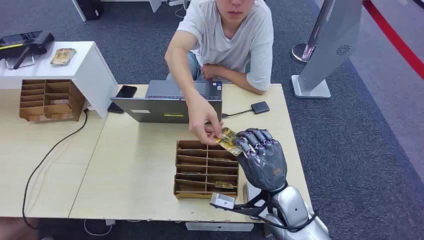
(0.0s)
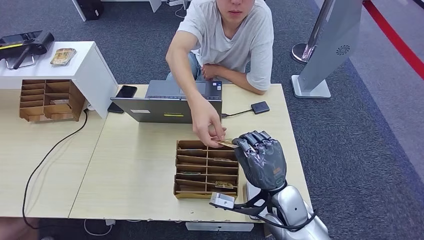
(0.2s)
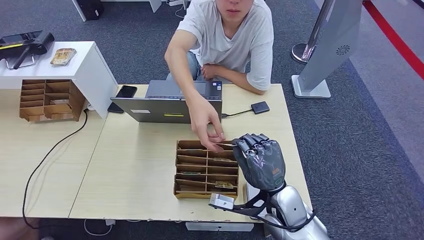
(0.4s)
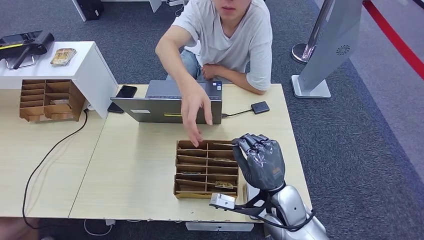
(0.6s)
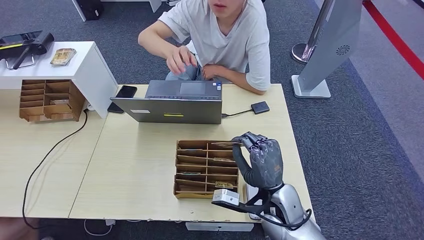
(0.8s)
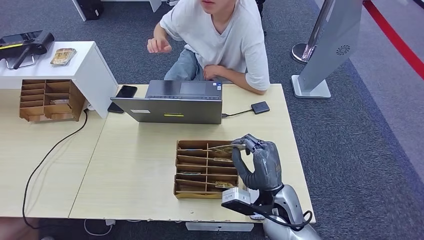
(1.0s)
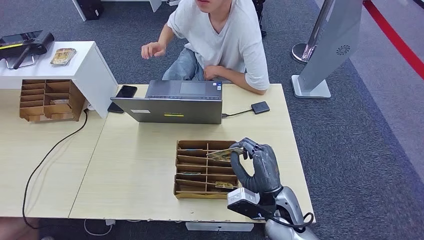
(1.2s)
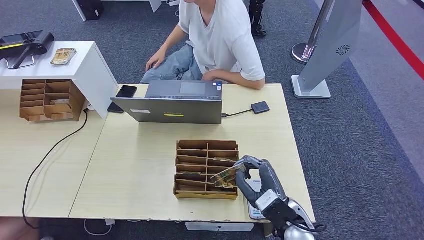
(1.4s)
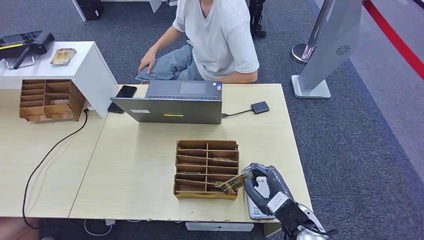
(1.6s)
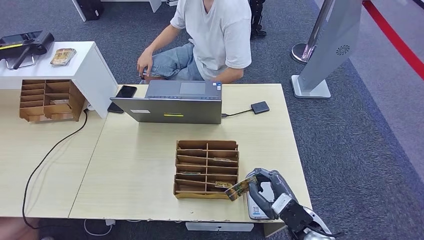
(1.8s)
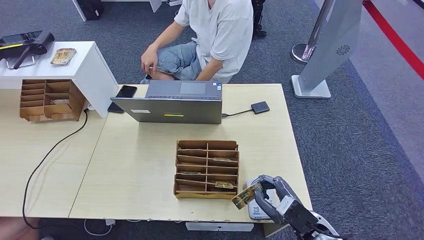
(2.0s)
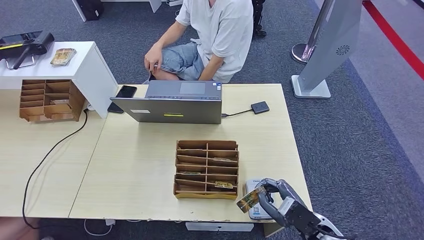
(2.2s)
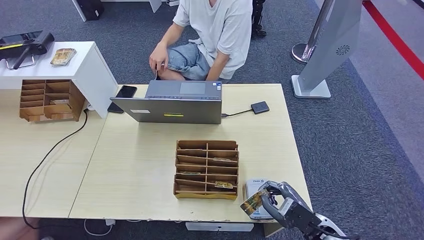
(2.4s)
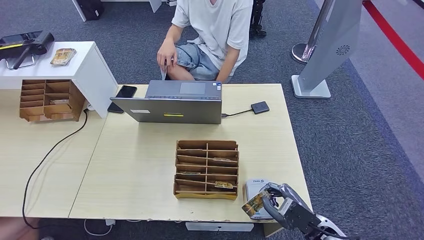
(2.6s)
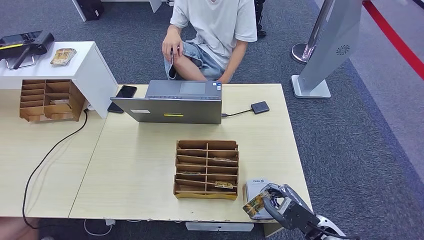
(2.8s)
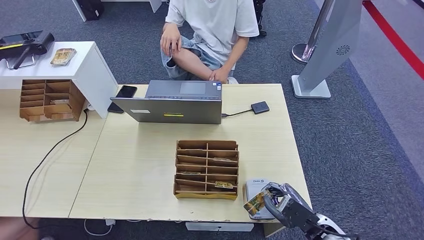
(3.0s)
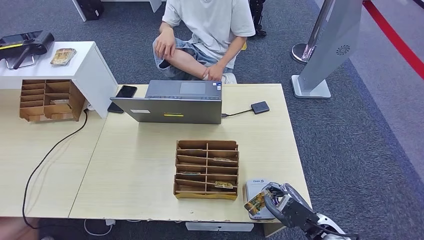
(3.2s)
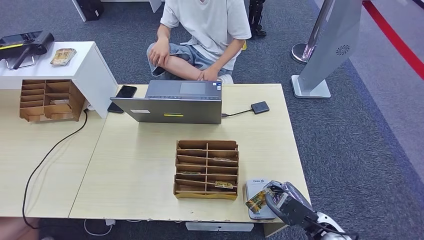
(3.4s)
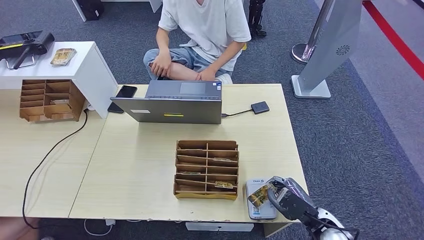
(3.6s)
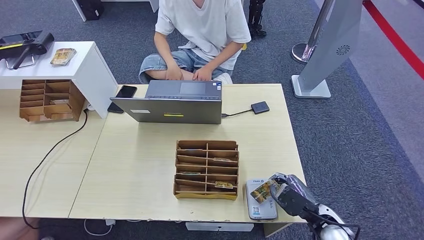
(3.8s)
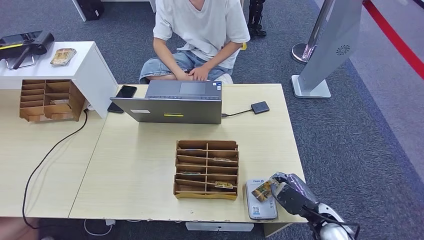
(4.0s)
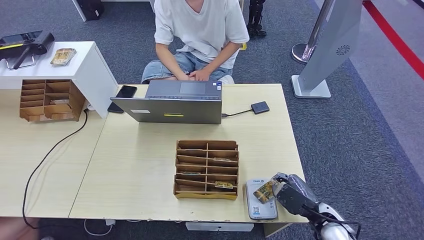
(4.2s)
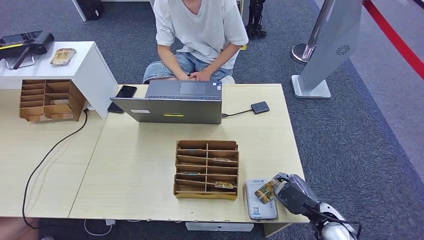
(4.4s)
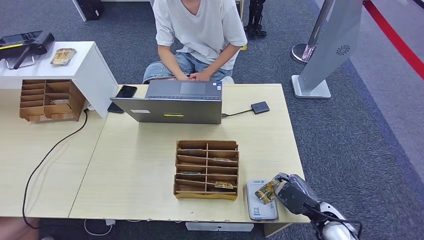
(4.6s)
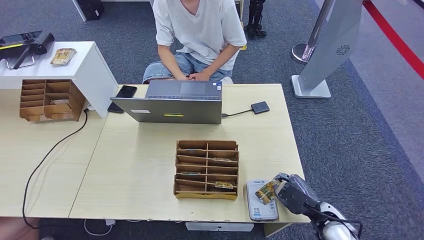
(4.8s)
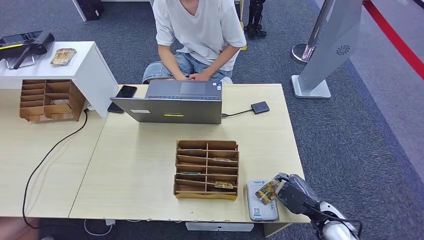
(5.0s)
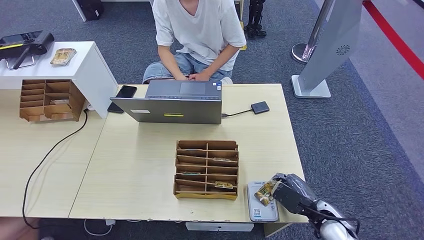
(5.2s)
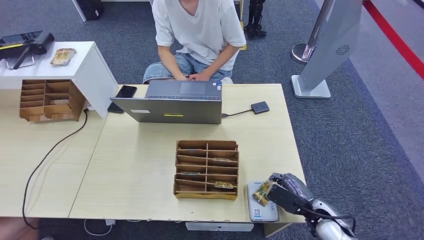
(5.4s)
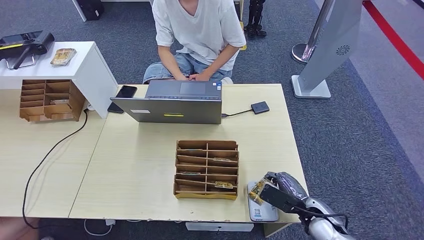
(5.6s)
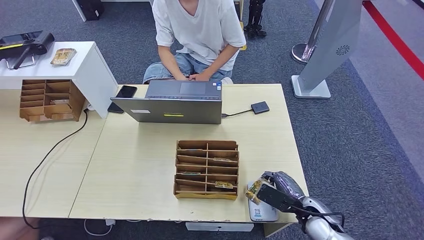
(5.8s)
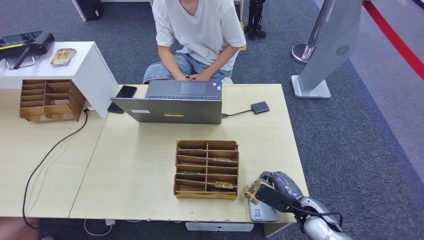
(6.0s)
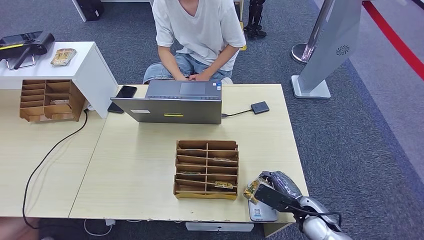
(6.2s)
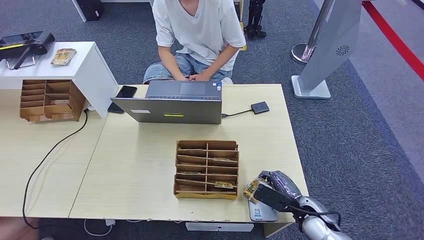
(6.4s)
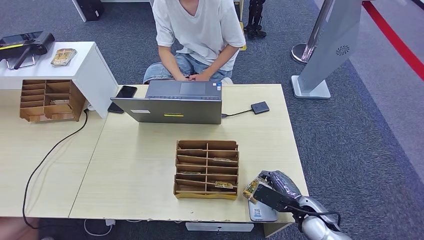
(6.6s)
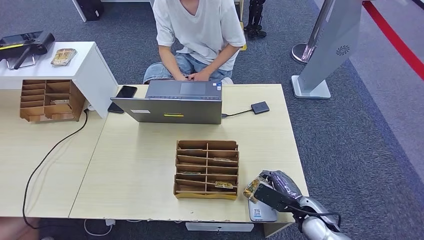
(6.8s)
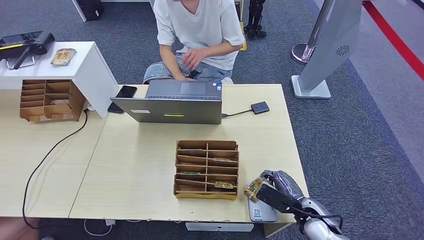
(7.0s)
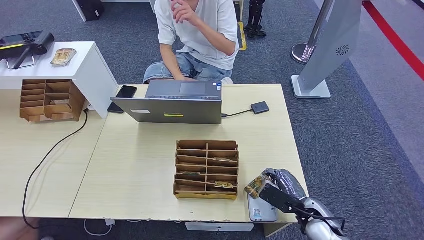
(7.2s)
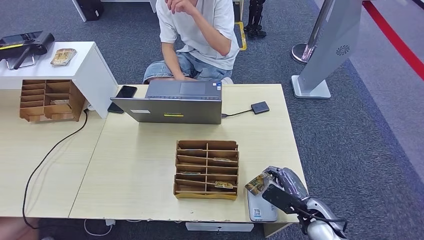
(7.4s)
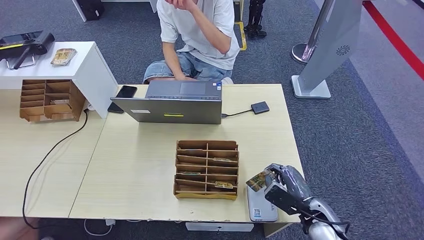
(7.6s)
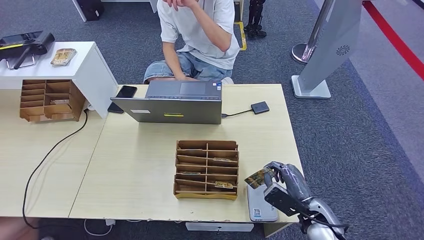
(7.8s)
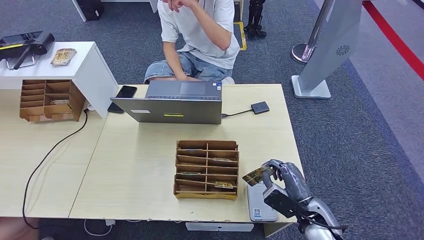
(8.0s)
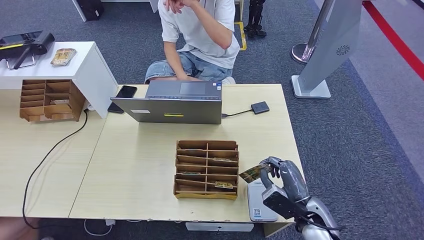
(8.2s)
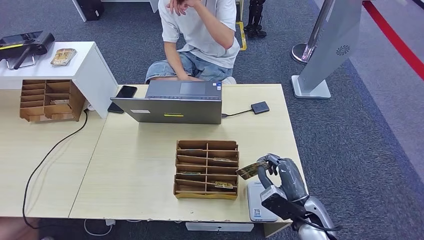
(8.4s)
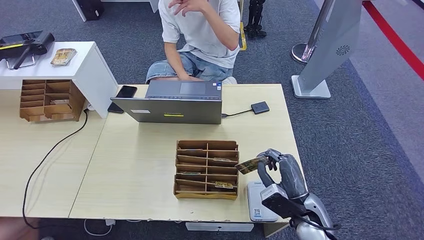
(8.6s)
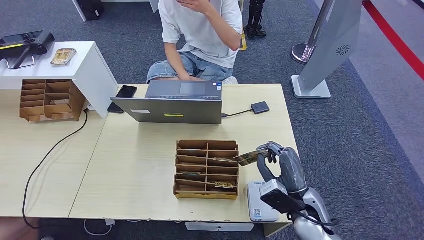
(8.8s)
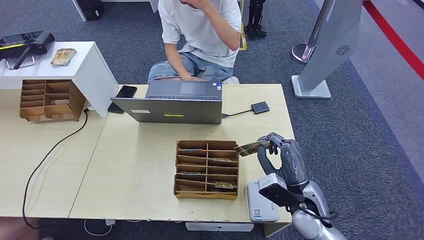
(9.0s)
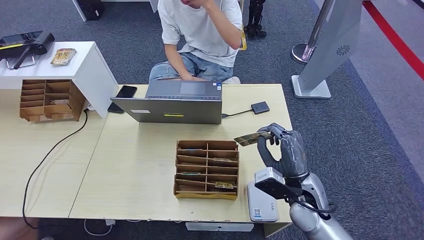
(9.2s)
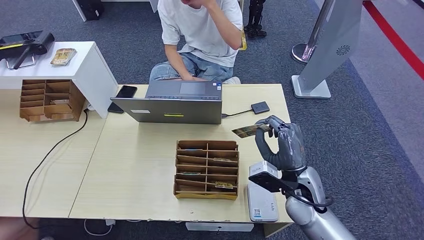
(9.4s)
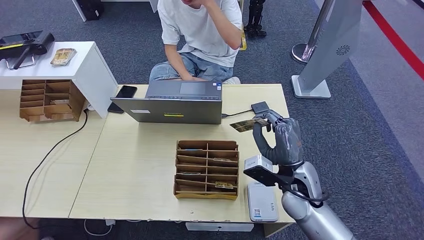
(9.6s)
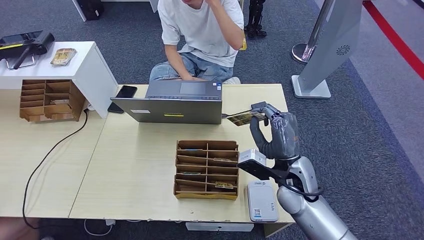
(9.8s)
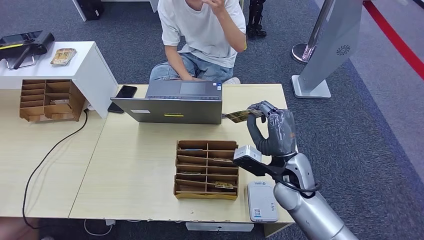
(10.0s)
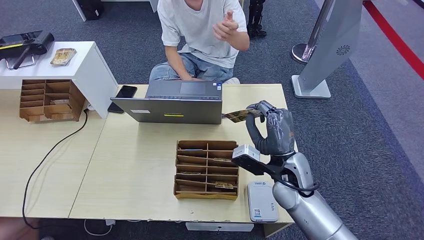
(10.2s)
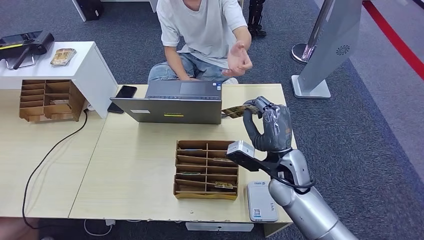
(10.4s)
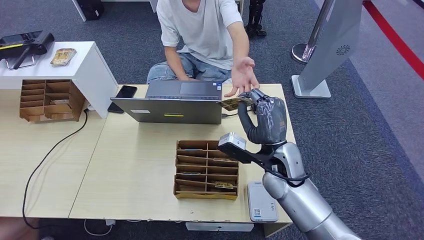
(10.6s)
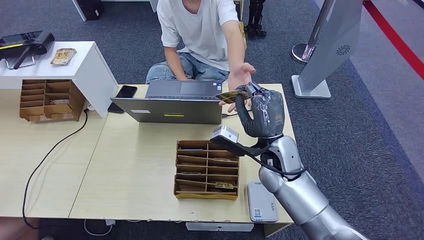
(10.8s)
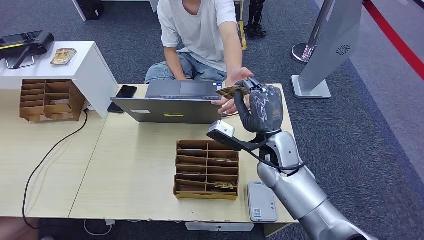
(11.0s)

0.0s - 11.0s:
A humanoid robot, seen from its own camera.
Step, 0.0s - 1.0s: Take the ID card from the person's hand.
Step, 1.2s - 4.2s: Place the ID card on the card reader.
Step, 4.4s - 8.6s: Hand the ID card to the person.
Step, 9.0s - 9.8s: Pick up the room key from the key card box.
1.6s - 3.2s: The right hand moves to the right, about 10 cm.
3.2s - 4.8s: The hands make only small movements.
4.8s - 7.8s: The hands stay close to where they were, moving slightly.
7.8s - 9.4s: The right hand shifts some 10 cm upward, to the left and forward.
9.4s - 11.0s: The right hand heads forward, to the left and upward, covering some 10 cm.

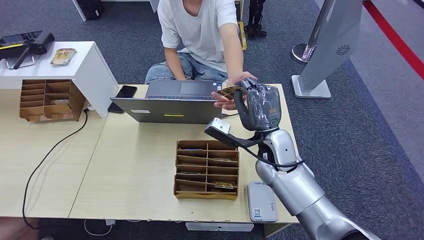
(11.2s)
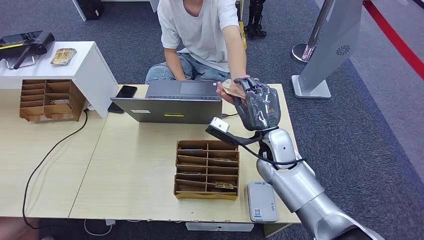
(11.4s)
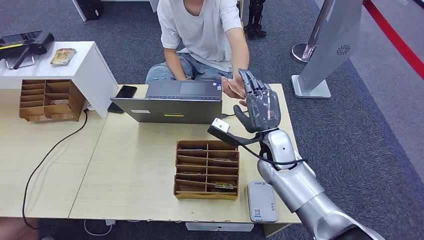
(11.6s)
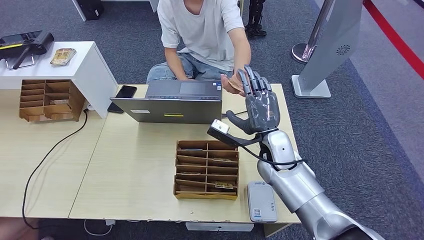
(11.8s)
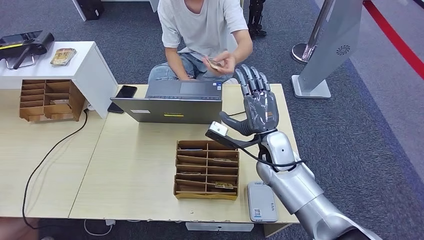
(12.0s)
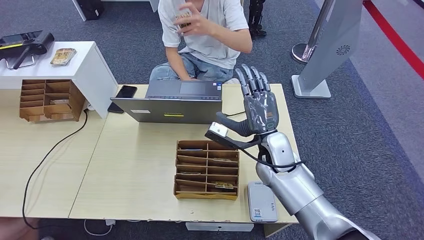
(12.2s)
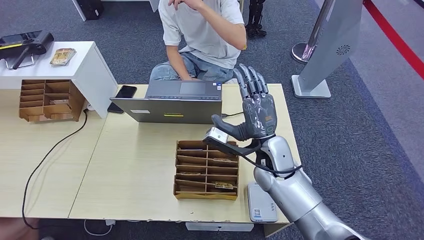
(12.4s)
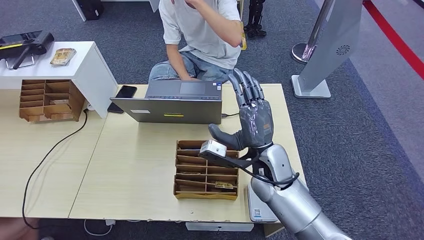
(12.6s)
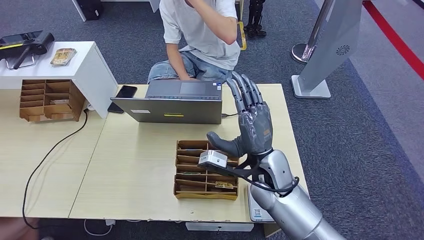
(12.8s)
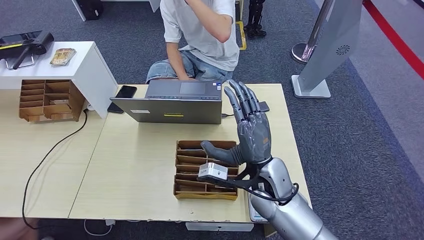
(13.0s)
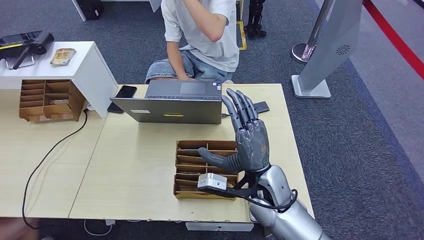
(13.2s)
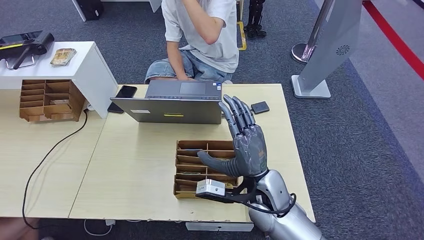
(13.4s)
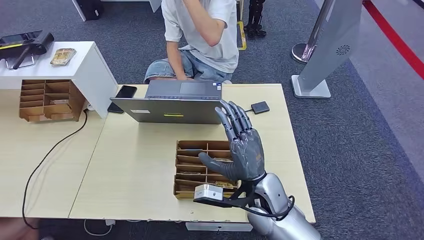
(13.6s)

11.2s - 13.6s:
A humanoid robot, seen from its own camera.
Step, 11.2s - 13.4s: Hand the room key to the person.
11.2s - 12.4s: The hands stay close to where they were, moving slightly.
12.4s - 13.6s: The right hand heads backward, covering about 10 cm.

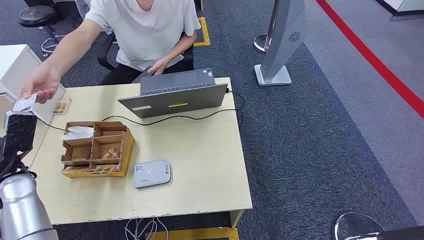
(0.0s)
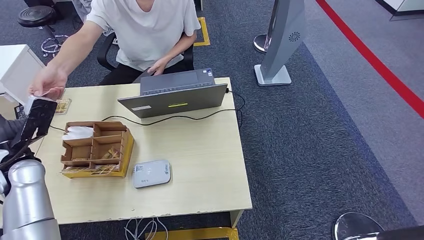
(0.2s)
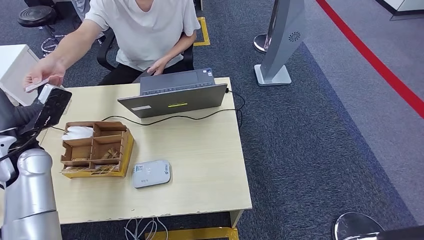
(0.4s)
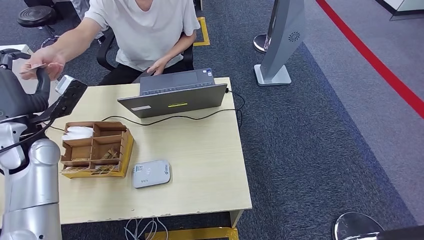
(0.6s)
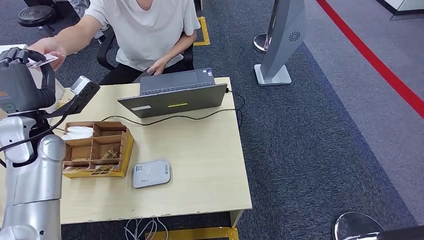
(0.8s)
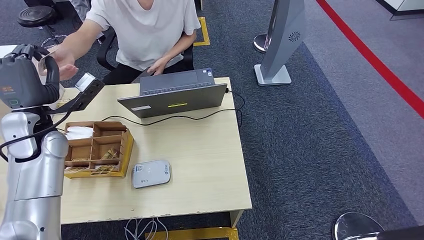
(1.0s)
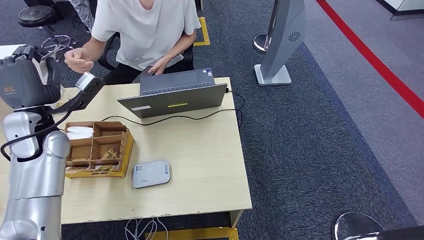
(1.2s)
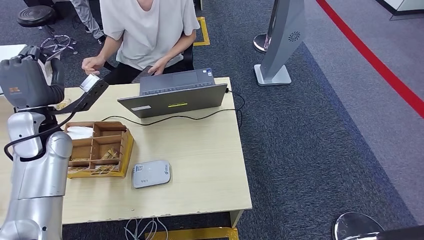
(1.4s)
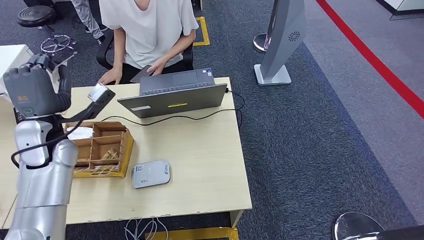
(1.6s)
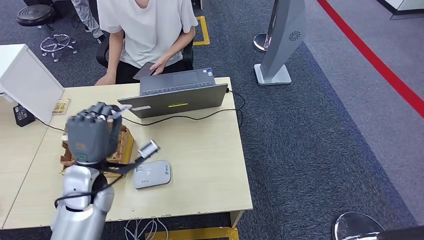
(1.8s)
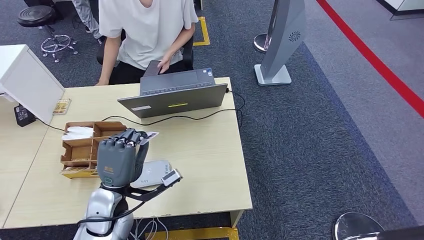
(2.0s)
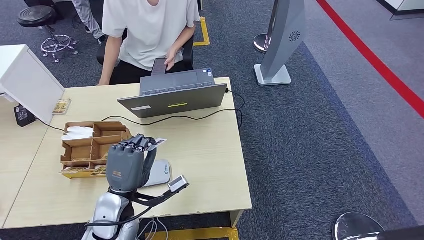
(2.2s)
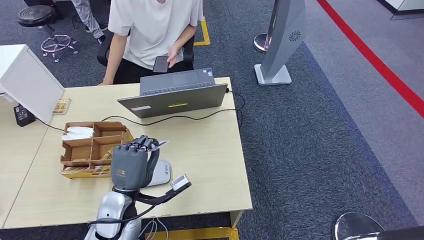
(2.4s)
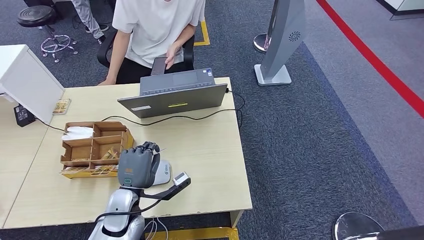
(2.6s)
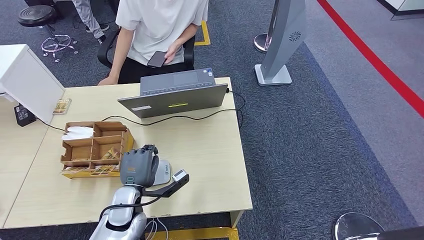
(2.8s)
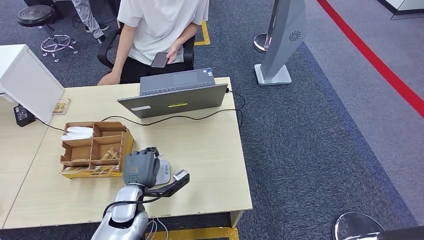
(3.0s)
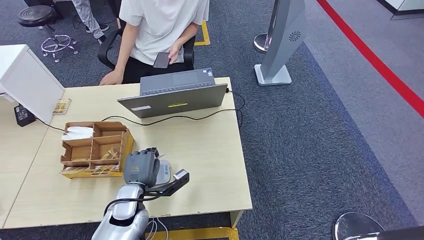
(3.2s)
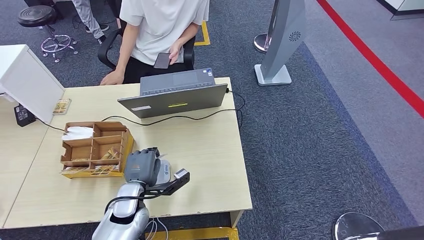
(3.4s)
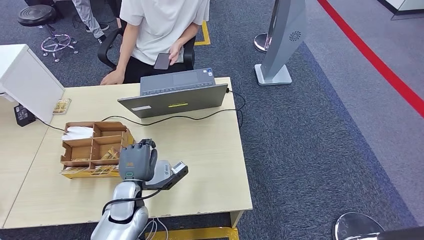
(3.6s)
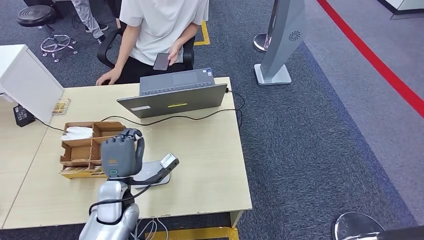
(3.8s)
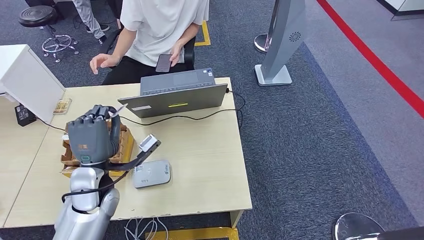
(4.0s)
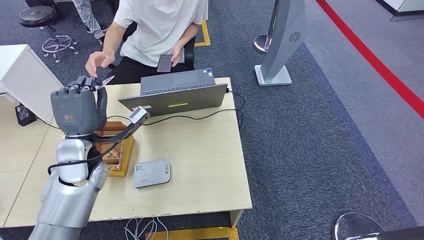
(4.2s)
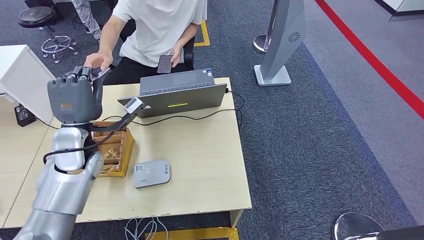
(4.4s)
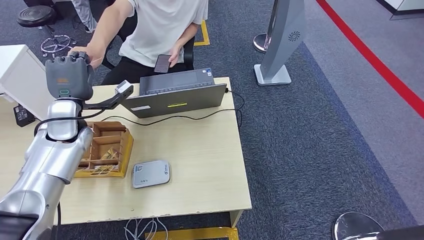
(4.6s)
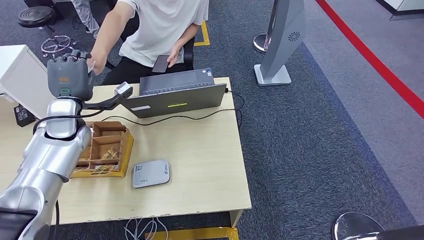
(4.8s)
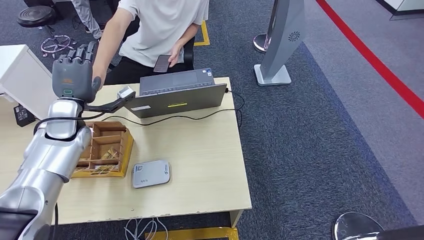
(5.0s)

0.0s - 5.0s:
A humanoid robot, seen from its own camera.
Step, 0.0s - 1.0s: Take the ID card from the person's hand.
Step, 1.2s - 4.2s: Place the ID card on the card reader.
3.4s - 5.0s: The left hand goes some 25 cm upward, forward and to the left.
